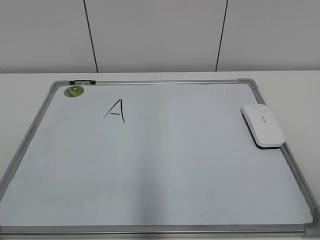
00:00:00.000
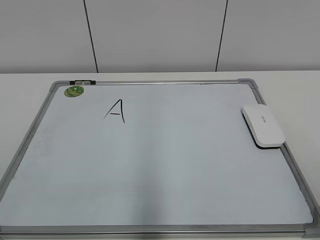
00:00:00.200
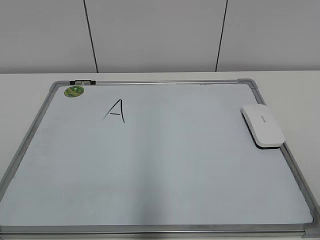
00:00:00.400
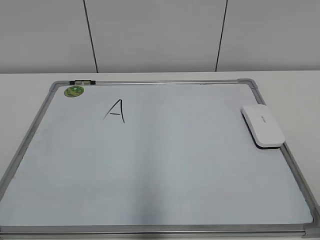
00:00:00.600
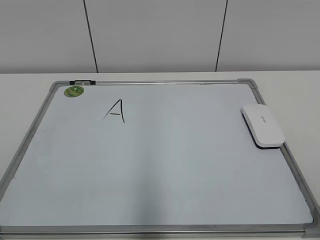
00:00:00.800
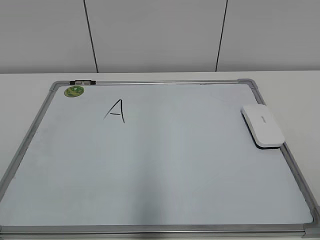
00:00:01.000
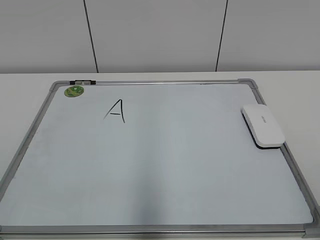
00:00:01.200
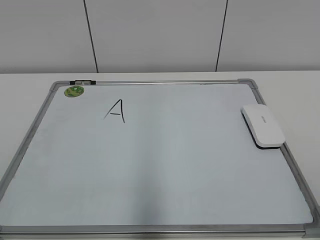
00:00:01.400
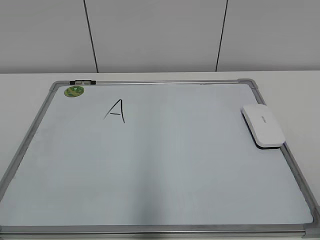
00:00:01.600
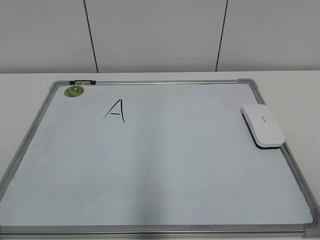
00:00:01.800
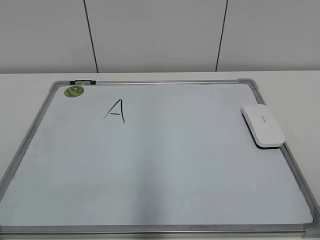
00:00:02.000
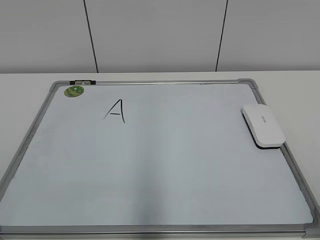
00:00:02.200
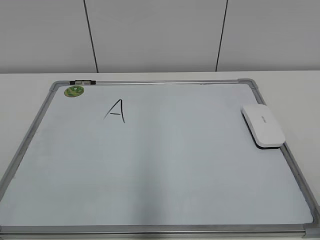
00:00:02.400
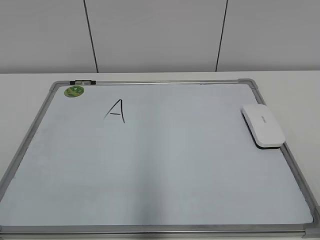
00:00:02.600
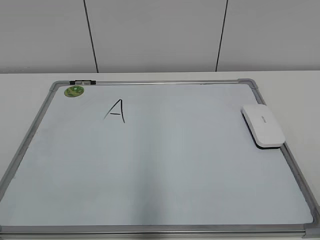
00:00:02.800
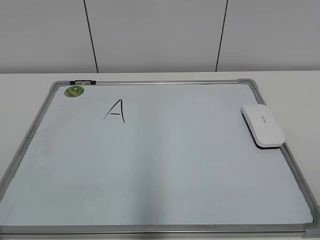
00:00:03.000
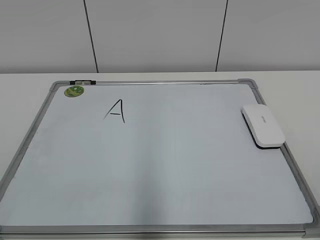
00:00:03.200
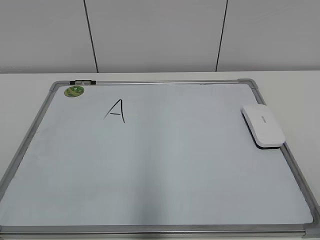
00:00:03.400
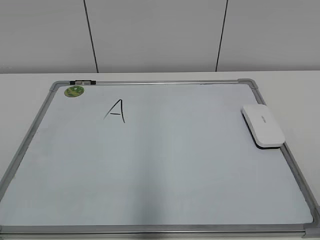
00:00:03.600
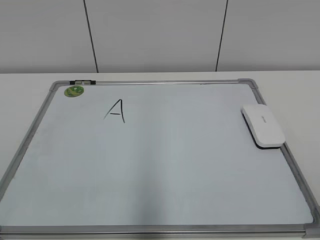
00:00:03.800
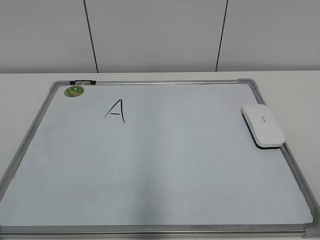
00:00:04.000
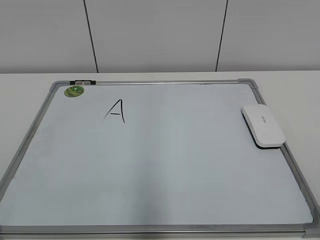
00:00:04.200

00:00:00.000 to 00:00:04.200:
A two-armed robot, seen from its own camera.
Task of the whole recording: pick up the eraser on the blackboard and erase the letter "a".
00:00:01.400 to 00:00:04.200: Both grippers stay about where they are.

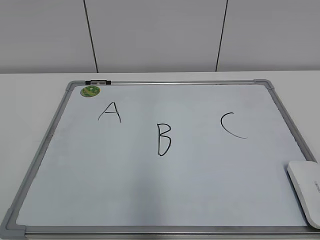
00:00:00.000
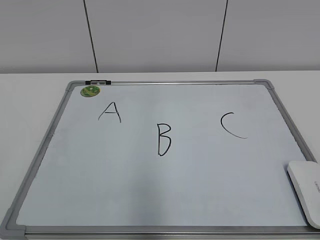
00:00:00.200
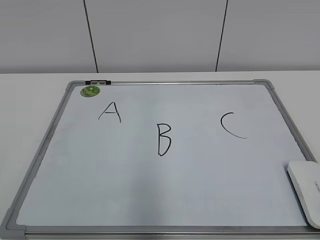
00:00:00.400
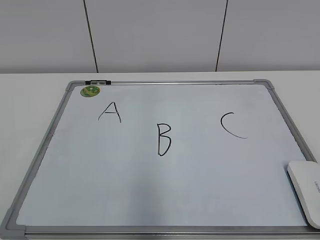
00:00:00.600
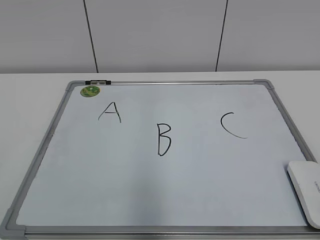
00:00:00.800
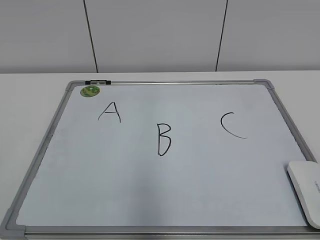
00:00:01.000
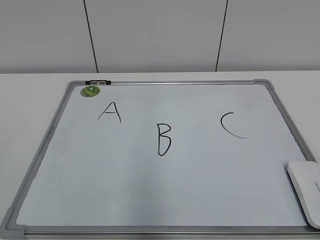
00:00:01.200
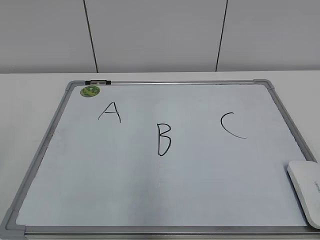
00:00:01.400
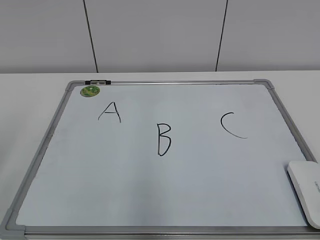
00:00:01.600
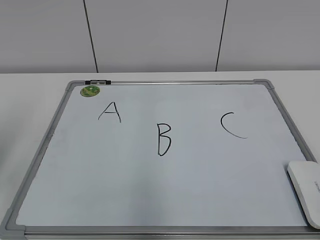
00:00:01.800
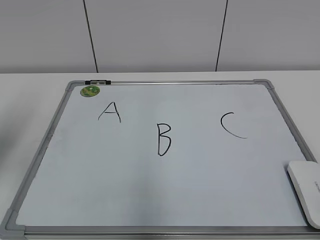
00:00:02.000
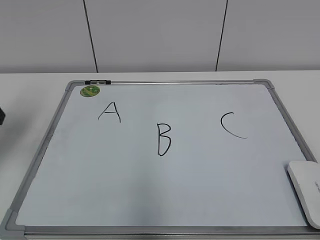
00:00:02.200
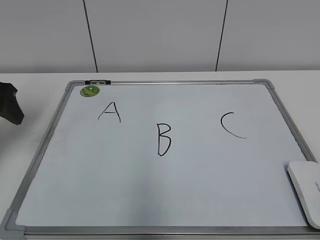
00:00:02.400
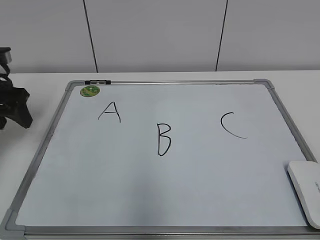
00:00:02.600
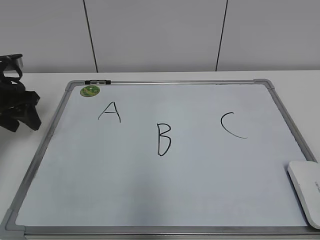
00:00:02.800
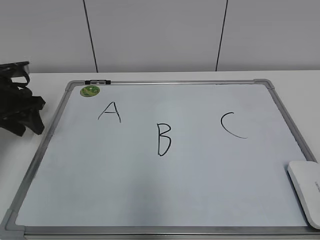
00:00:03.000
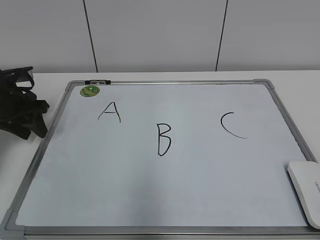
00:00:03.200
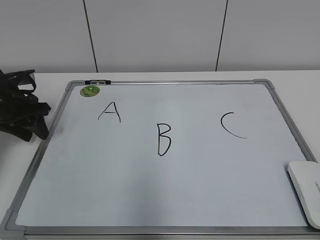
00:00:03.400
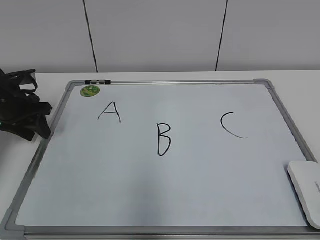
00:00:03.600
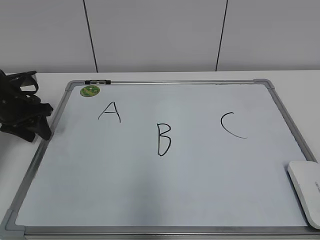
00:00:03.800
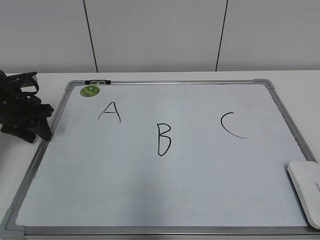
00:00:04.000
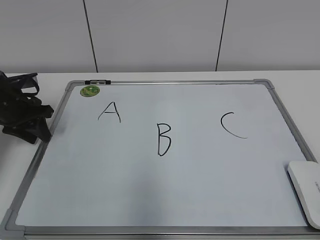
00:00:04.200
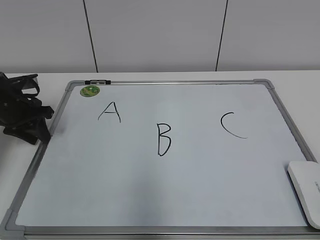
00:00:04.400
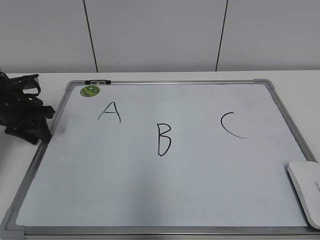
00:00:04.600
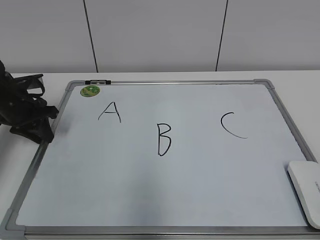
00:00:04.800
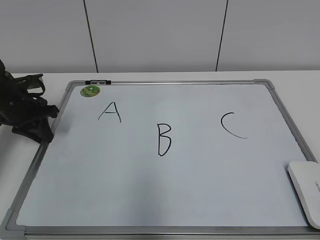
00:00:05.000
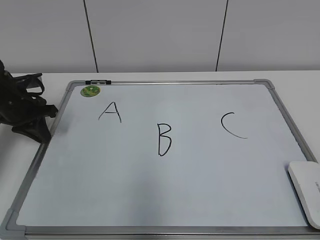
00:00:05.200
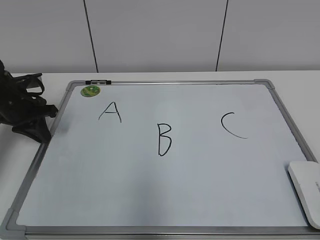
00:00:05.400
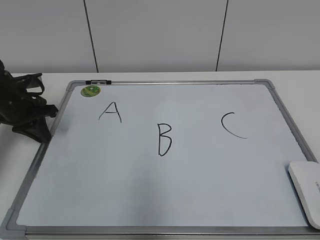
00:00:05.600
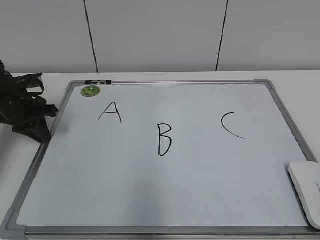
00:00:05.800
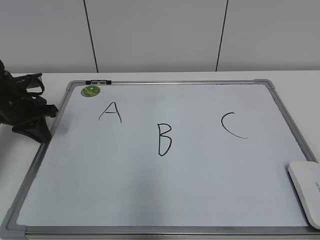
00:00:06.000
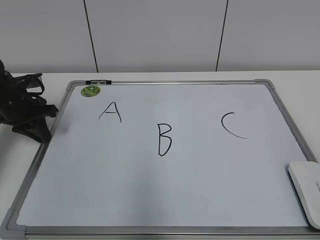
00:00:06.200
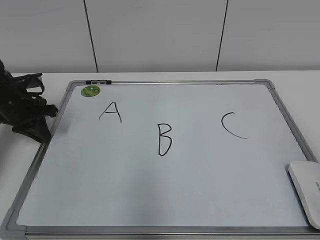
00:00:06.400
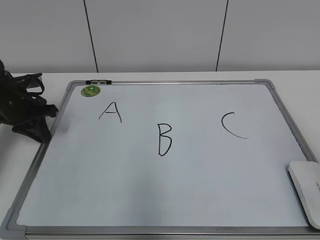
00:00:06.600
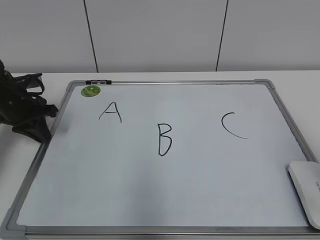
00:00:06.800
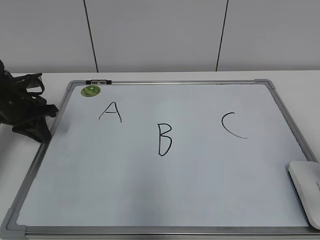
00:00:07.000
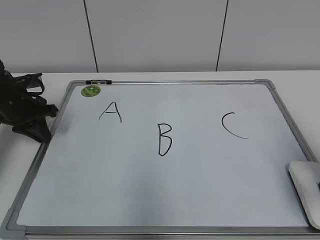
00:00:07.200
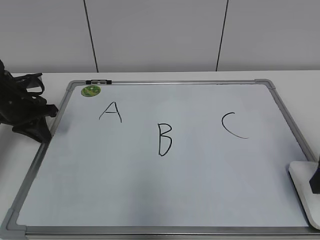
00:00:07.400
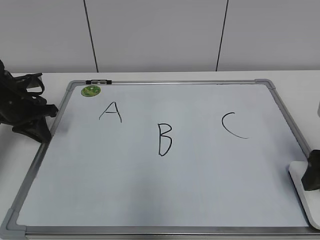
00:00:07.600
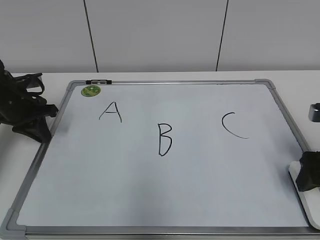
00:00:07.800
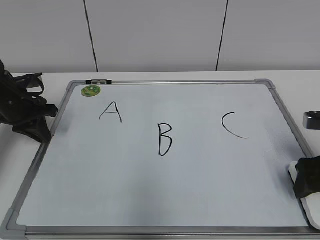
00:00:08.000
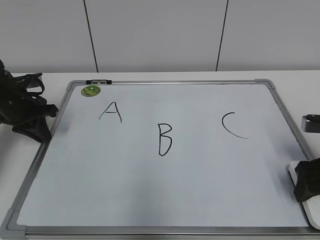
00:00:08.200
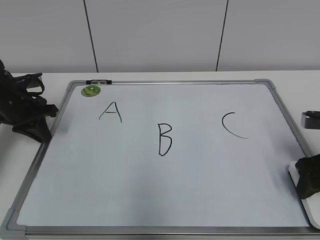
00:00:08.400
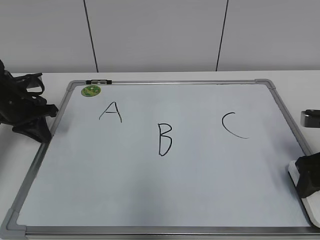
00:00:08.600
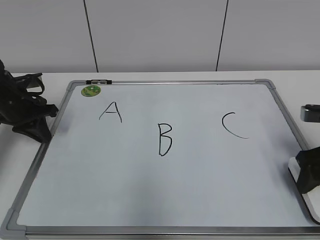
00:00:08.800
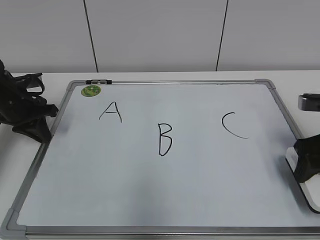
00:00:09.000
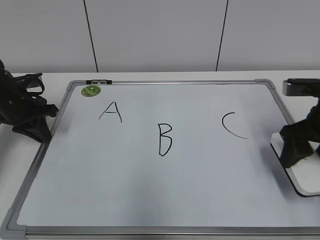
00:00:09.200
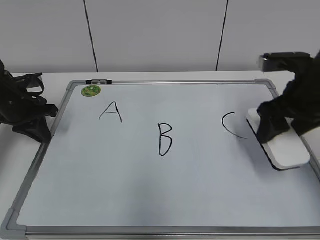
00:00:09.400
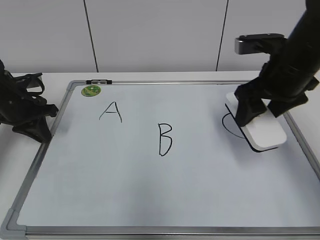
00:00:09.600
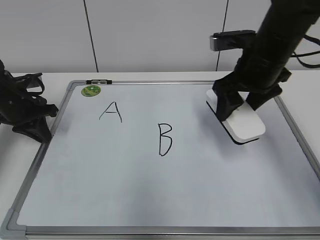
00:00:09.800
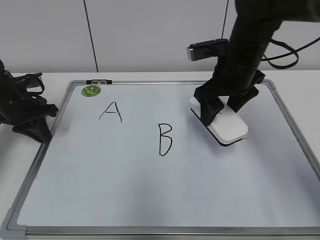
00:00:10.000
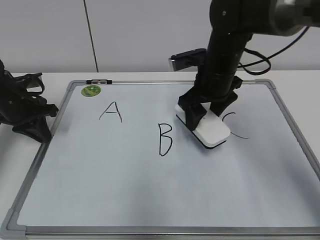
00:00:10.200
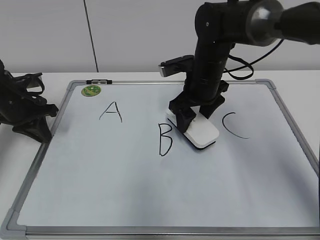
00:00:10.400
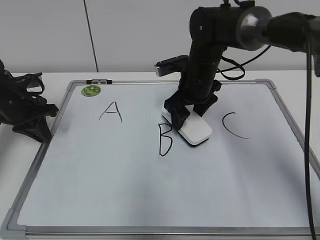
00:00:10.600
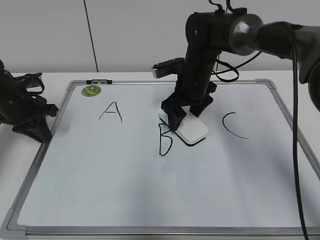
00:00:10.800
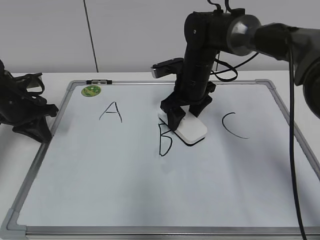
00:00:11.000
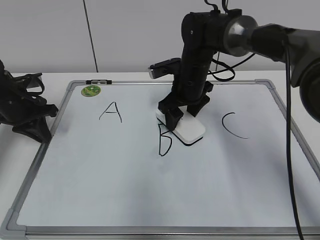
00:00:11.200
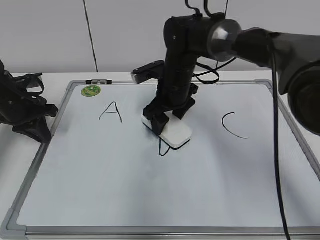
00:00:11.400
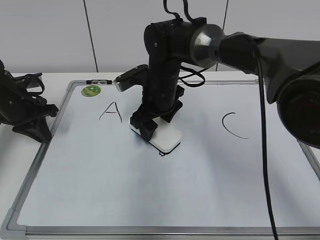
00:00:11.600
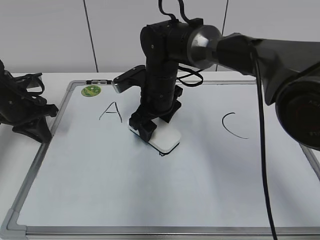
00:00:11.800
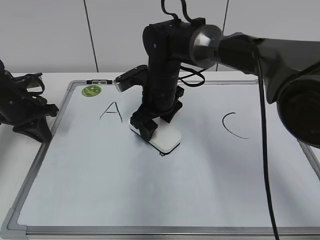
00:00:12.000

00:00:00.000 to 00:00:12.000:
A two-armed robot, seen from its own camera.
Task of the whole recording: pick up the eraser on the blackboard and erase the letter "B".
Step, 00:00:00.000 to 00:00:05.000: Hold the drawing board steady with your left hand.
Step, 00:00:05.200 to 00:00:08.400: Grab the eraser with your right hand.
00:00:01.600 to 00:00:03.000: The left gripper moves forward and downward, about 30 cm, and closes its fingers.
00:00:03.000 to 00:00:06.000: The grippers make only small movements.
00:00:06.000 to 00:00:07.600: The right gripper is displaced forward and downward by roughly 25 cm, and opens up.
00:00:07.600 to 00:00:09.000: The right gripper closes its fingers.
00:00:09.000 to 00:00:10.400: The right gripper shifts some 25 cm to the left and forward.
00:00:10.400 to 00:00:12.000: The right gripper travels to the left by some 10 cm.

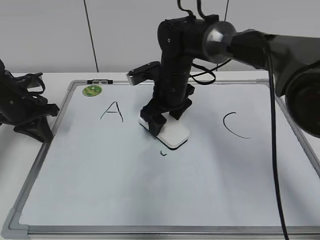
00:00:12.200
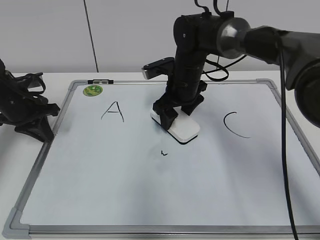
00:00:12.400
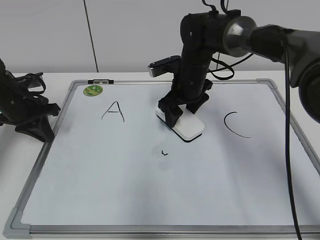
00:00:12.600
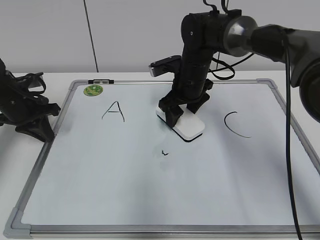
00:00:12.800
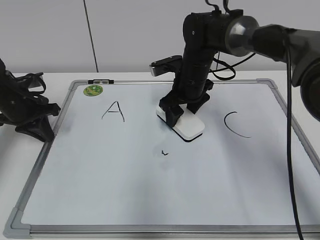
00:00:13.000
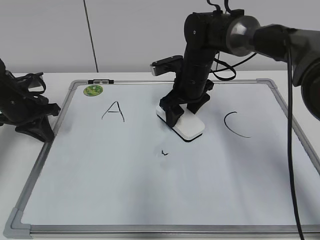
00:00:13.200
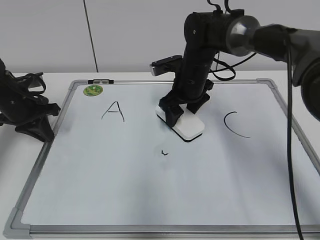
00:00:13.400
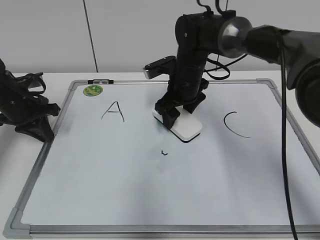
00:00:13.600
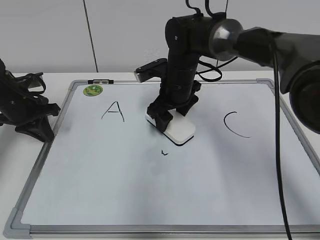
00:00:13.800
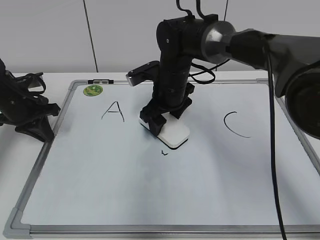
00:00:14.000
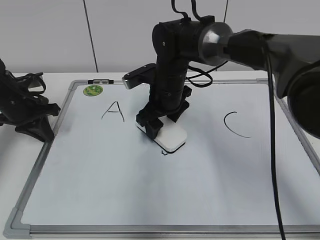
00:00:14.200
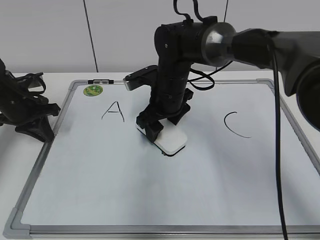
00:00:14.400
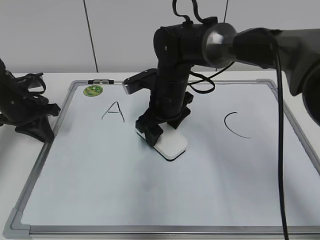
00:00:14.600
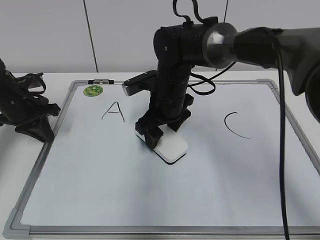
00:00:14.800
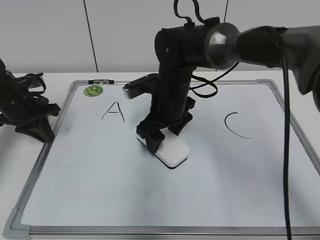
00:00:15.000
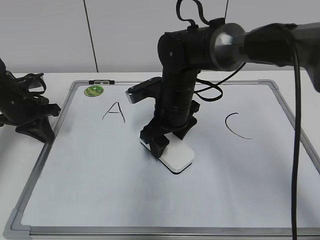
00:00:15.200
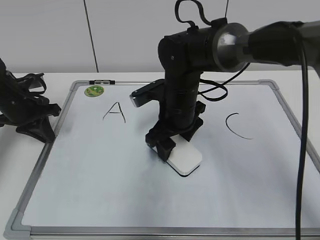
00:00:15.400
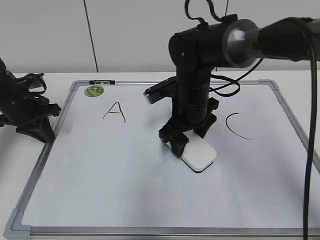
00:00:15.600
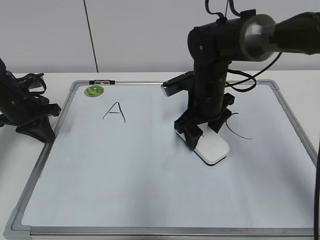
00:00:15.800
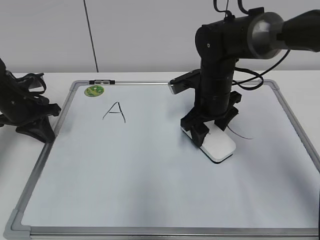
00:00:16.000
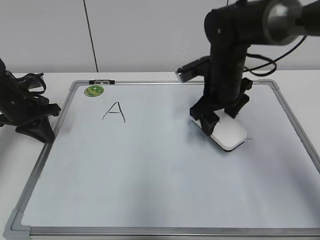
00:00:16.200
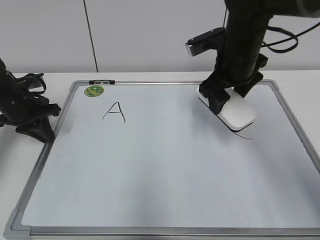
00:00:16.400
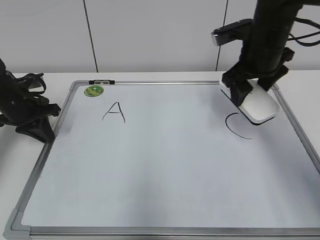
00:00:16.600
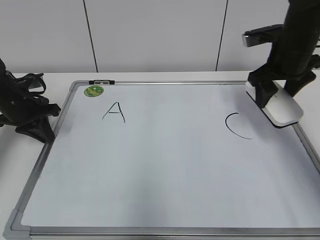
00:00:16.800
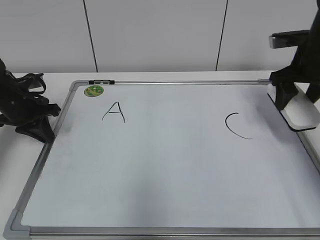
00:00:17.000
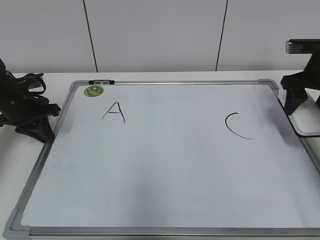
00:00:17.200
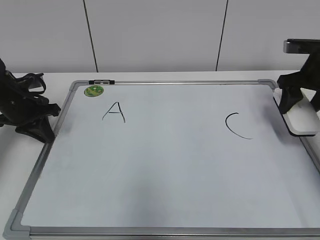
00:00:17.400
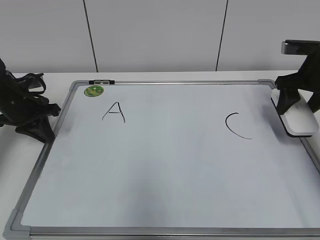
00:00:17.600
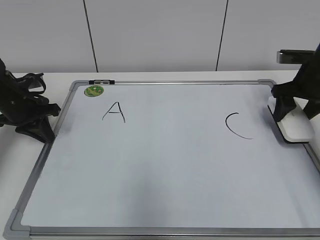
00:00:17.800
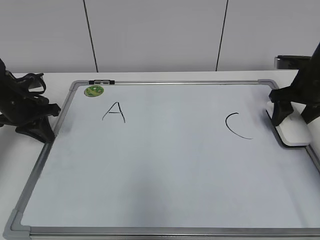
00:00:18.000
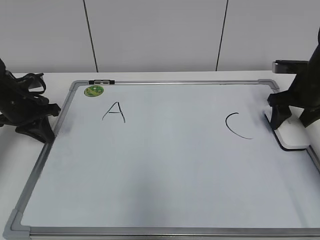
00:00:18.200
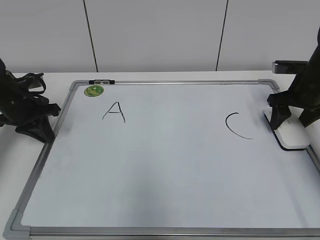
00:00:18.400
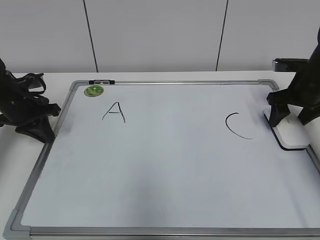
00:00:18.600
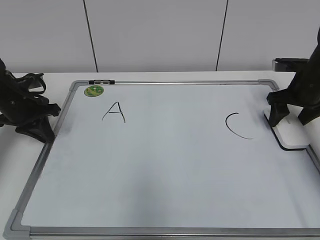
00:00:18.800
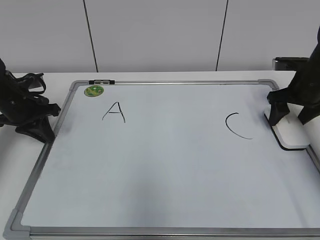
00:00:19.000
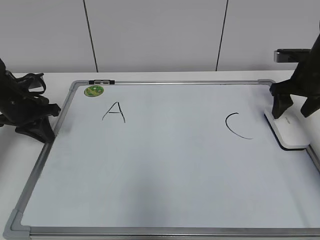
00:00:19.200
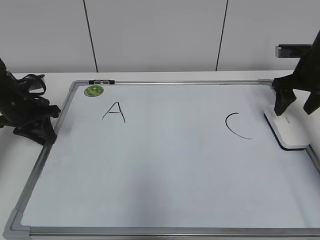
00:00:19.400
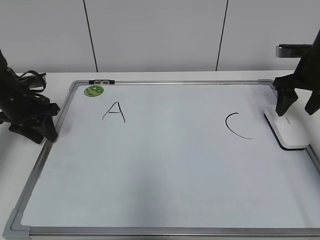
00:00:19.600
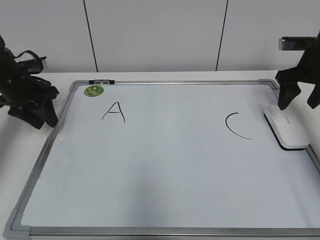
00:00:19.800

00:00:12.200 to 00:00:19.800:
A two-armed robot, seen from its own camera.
Task of the whole recording: pick up the eraser on the blackboard and erase the letter "B".
Step, 00:00:12.200 to 00:00:15.000: Erase the letter B with your right hand.
Step, 00:00:15.200 to 00:00:18.600: Put down the eraser with your right hand.
00:00:12.200 to 00:00:13.800: The grippers make only small movements.
00:00:13.800 to 00:00:15.200: The right gripper heads backward, covering some 5 cm.
00:00:15.200 to 00:00:16.800: The right gripper goes some 20 cm to the right and upward.
00:00:16.800 to 00:00:18.200: The right gripper travels to the right and downward by approximately 10 cm.
00:00:18.200 to 00:00:19.800: The left gripper opens its fingers.
